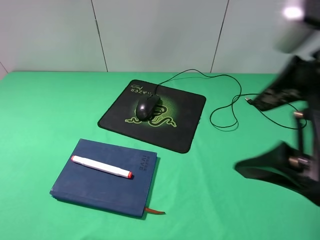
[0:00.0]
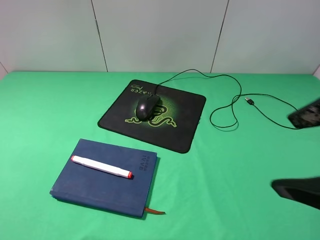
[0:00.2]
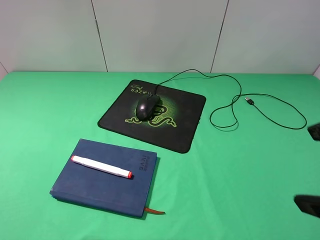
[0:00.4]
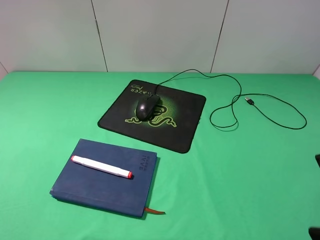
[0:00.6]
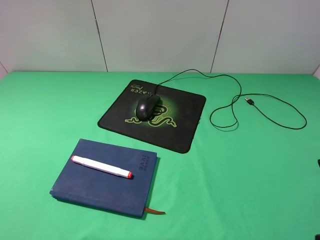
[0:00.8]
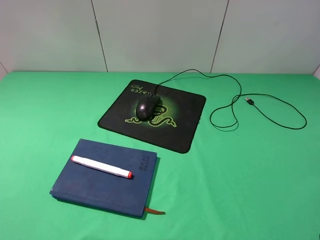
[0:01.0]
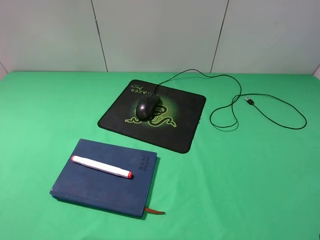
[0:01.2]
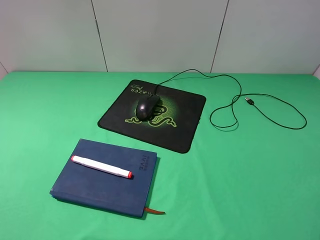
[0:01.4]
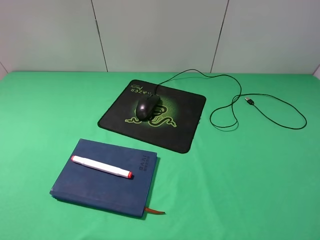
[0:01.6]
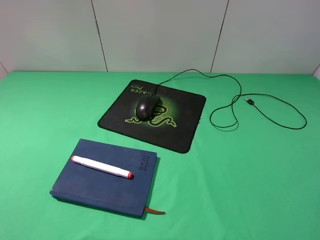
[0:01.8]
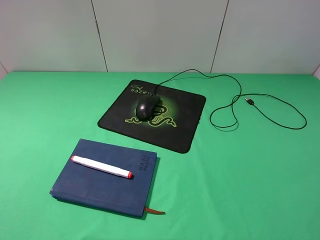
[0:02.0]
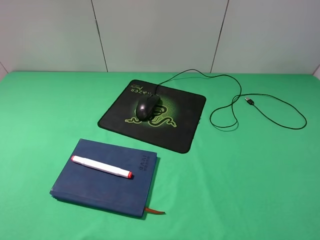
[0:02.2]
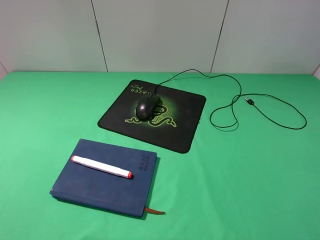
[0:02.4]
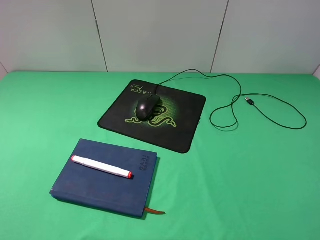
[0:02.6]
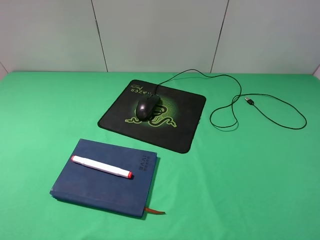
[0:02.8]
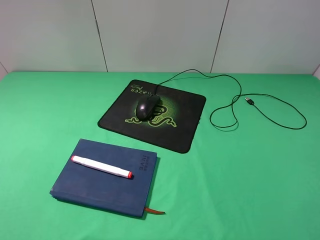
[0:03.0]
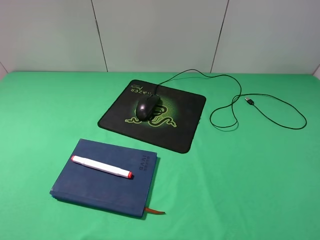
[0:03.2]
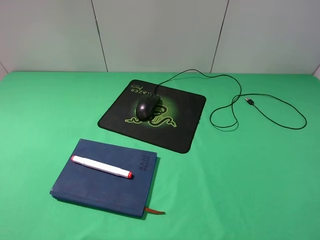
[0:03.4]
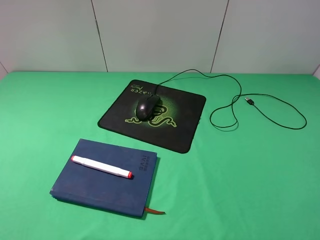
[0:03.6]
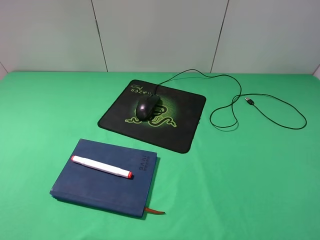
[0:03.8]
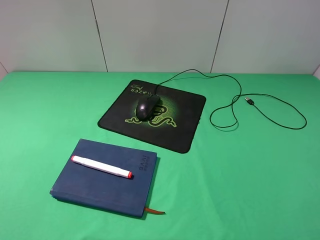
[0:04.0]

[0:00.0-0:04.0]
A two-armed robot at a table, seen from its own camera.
0:00.0 to 0:01.4: The right gripper heads to the right, backward and downward, covering about 15 cm.
